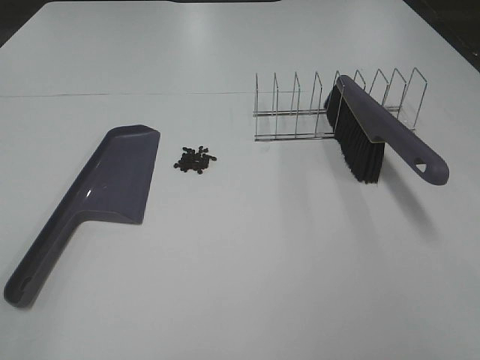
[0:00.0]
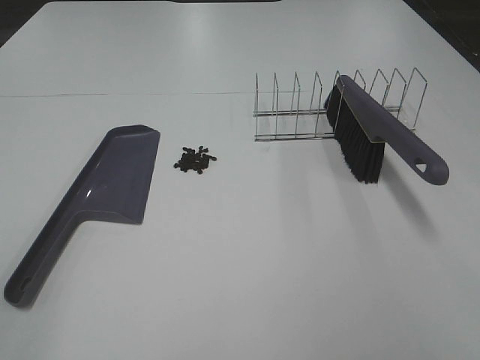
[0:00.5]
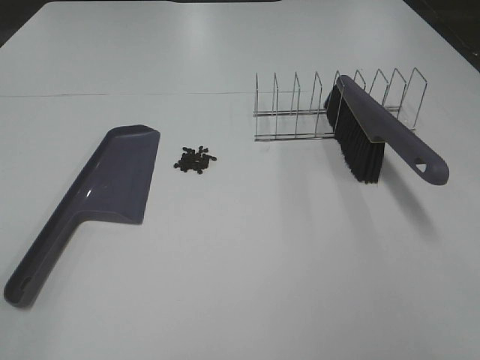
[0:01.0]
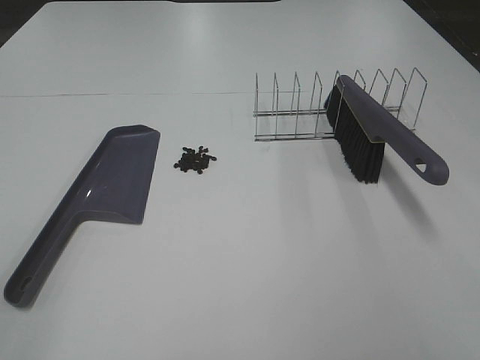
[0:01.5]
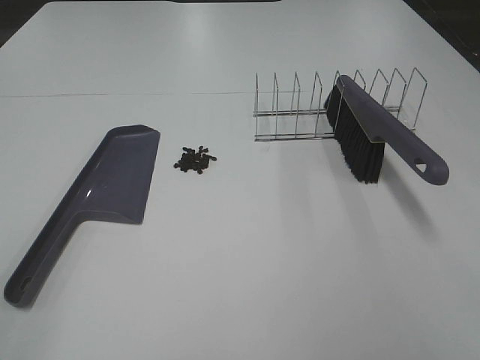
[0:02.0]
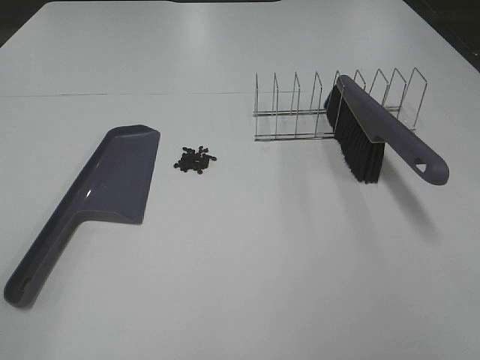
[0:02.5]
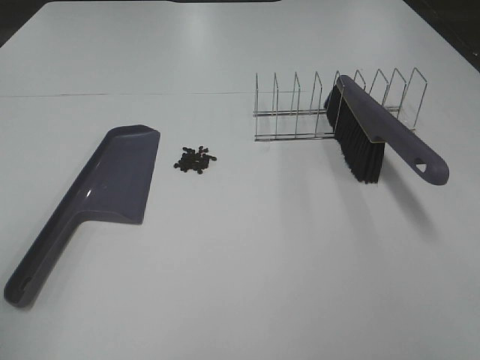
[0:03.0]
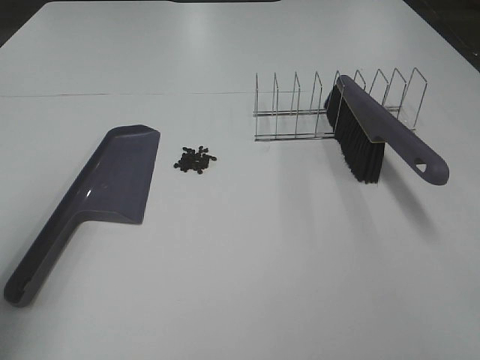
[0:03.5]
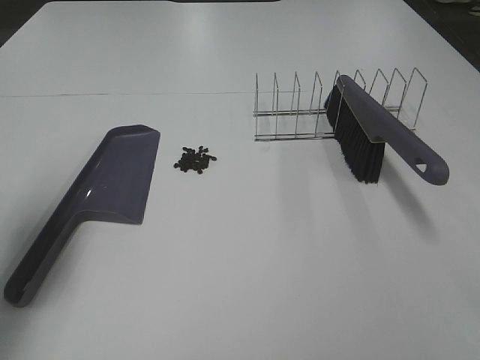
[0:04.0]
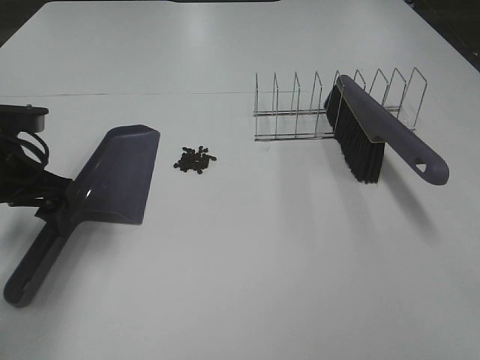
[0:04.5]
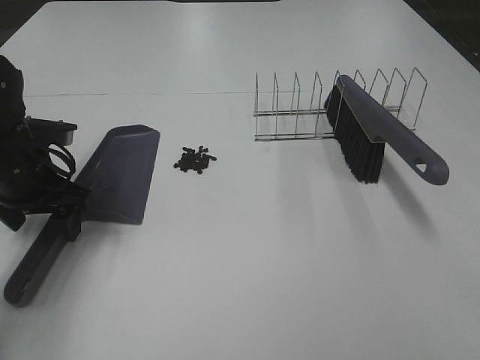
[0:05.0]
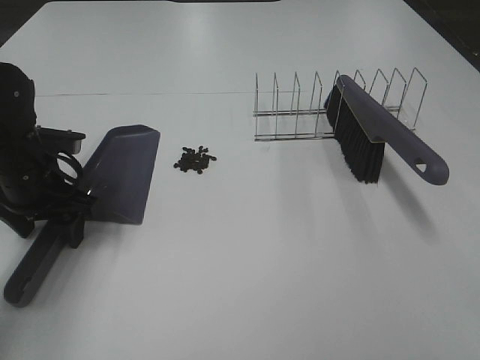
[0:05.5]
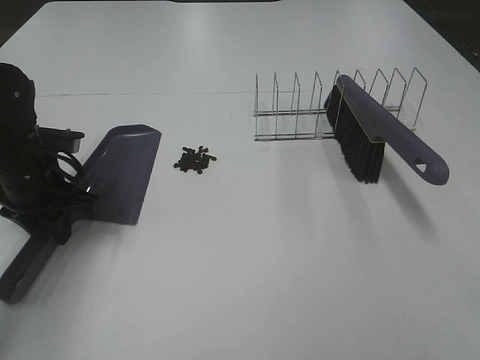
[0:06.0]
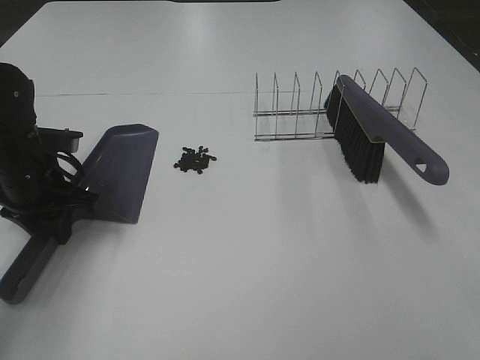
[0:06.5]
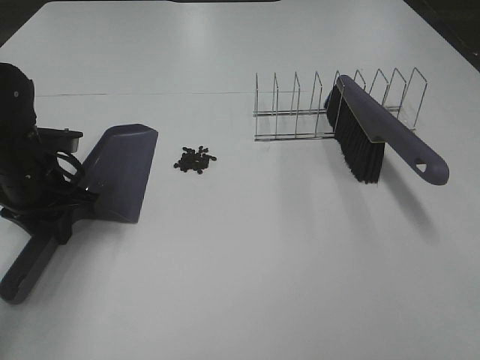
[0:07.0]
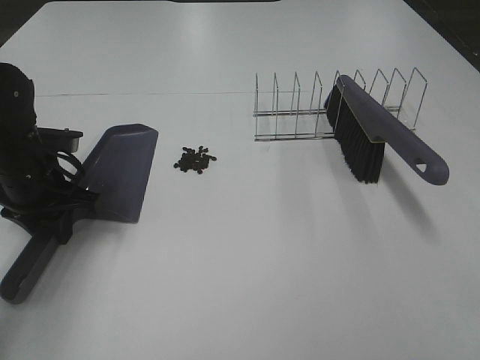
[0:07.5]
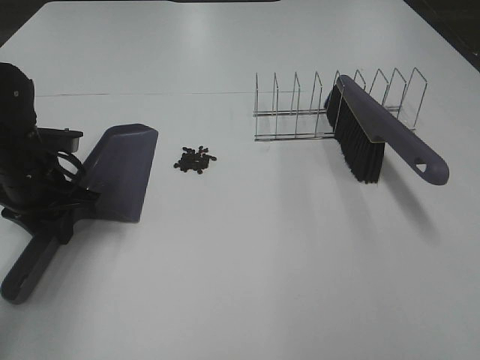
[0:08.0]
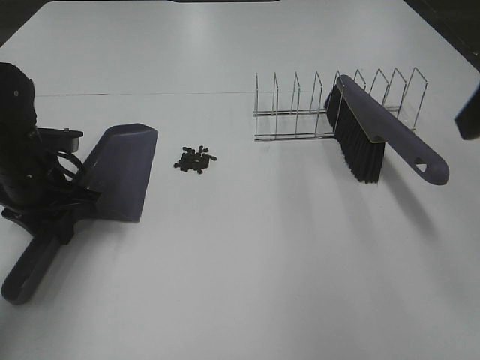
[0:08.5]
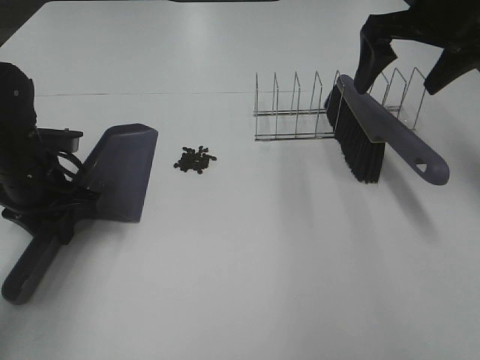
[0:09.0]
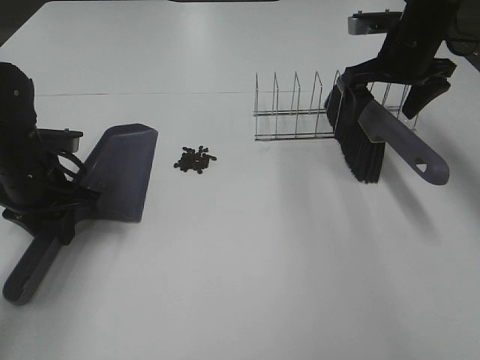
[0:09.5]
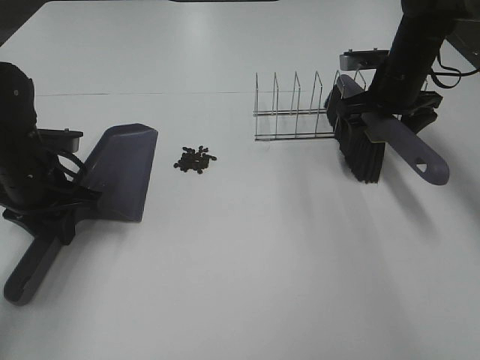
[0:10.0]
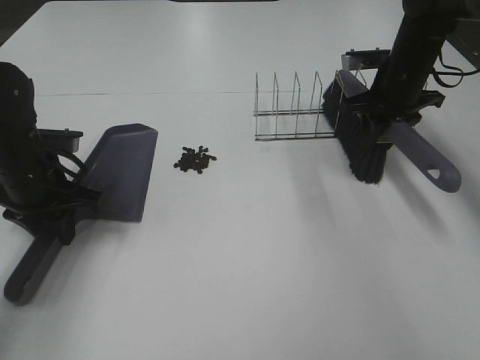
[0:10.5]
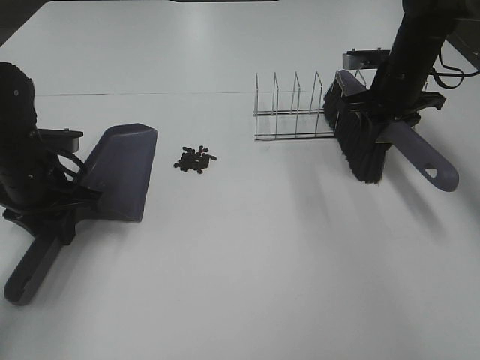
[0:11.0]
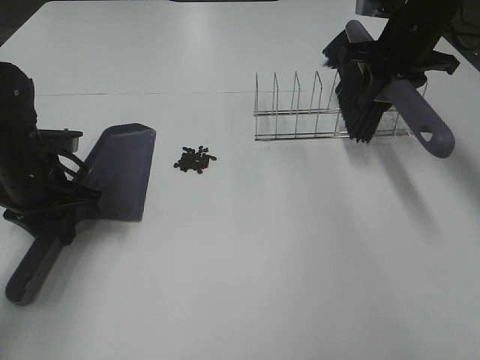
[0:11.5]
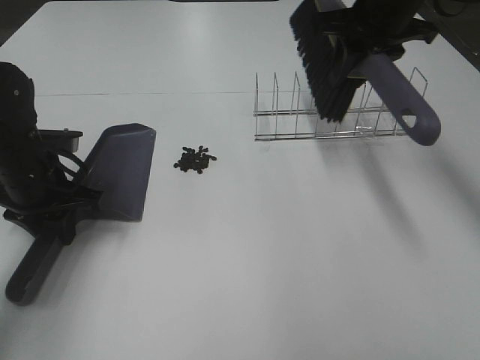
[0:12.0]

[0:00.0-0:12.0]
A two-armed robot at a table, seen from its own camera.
Task of the whole recording: Sweep Coffee Bean.
Step, 0:00.0 to 0:06.0: Left hand: grab the dustpan.
Step, 0:07.5 to 0:10.5: Right hand:grab the broom.
0:00.0 to 0:02.0: The two grippers keep their place.
0:02.0 to 0:04.0: The left gripper goes about 25 cm forward.
0:04.0 to 0:06.0: The left gripper moves downward, forward and to the right, about 15 cm, and closes up.
0:08.0 to 0:10.0: The right gripper travels forward and downward by roughly 50 cm.
0:10.0 to 0:12.0: The right gripper heads upward and to the left, covering roughly 15 cm, and closes up.

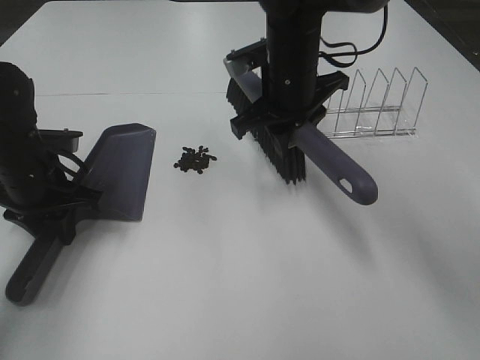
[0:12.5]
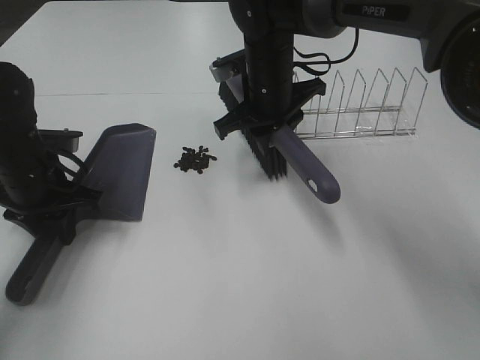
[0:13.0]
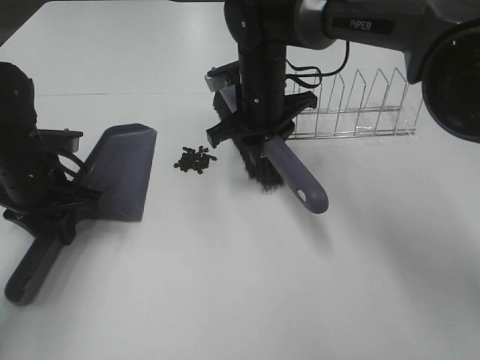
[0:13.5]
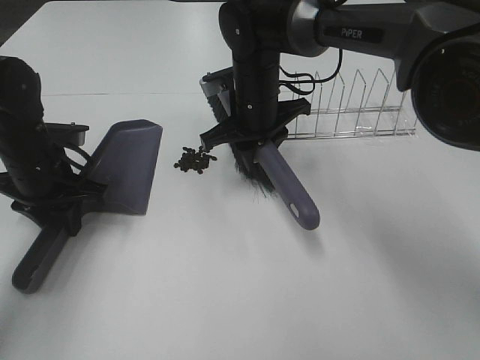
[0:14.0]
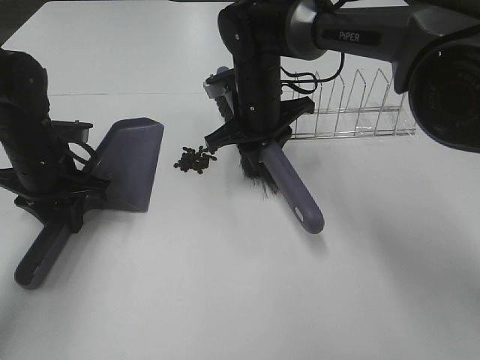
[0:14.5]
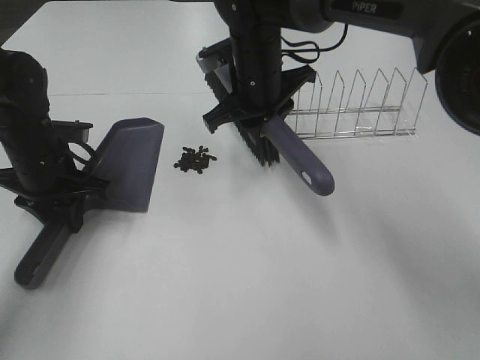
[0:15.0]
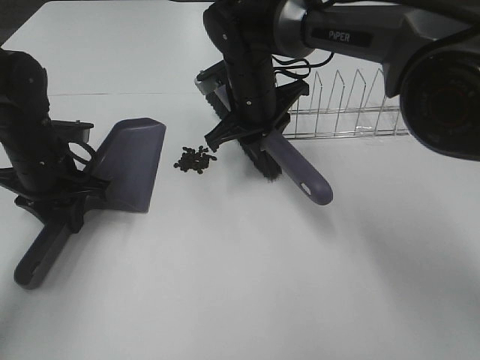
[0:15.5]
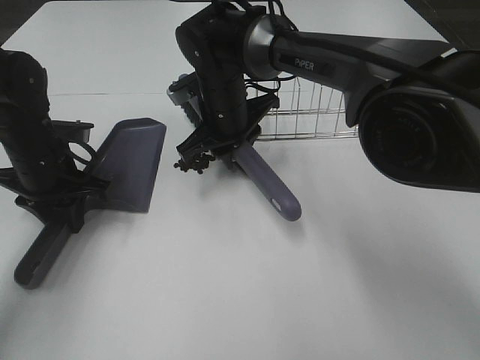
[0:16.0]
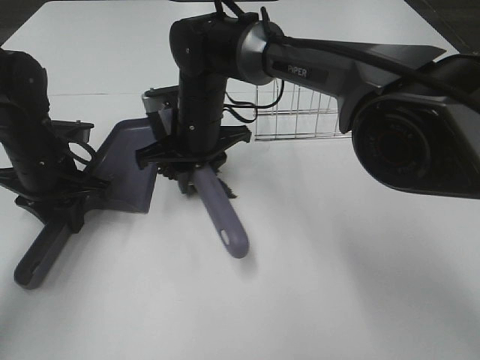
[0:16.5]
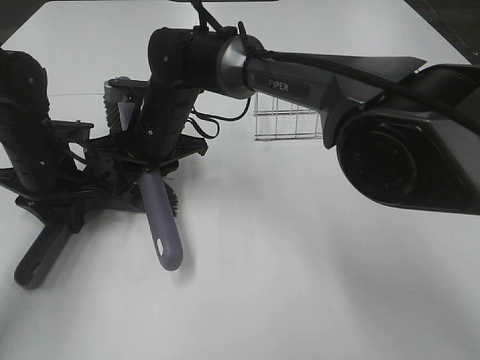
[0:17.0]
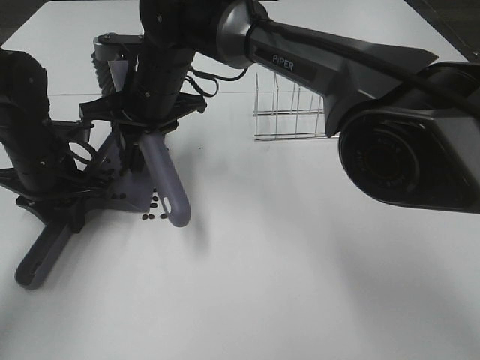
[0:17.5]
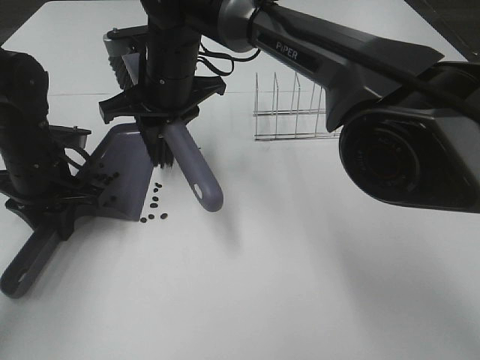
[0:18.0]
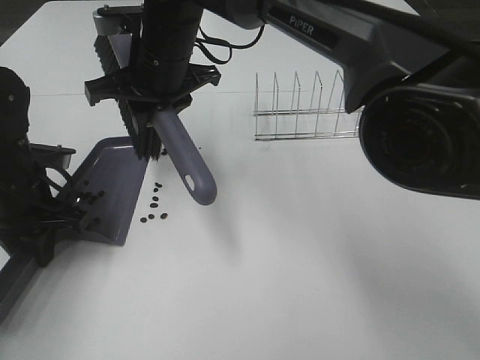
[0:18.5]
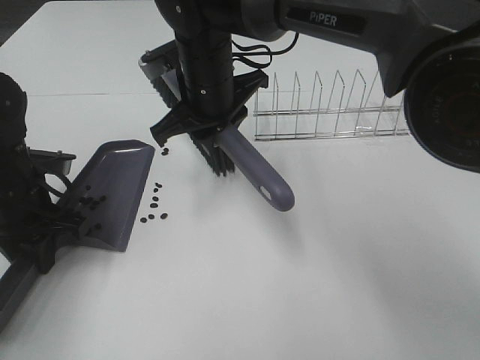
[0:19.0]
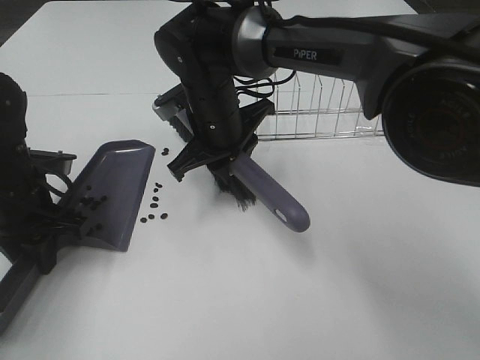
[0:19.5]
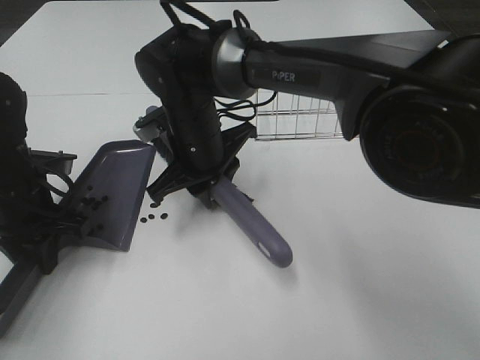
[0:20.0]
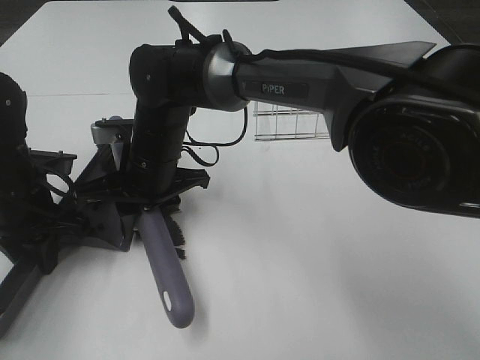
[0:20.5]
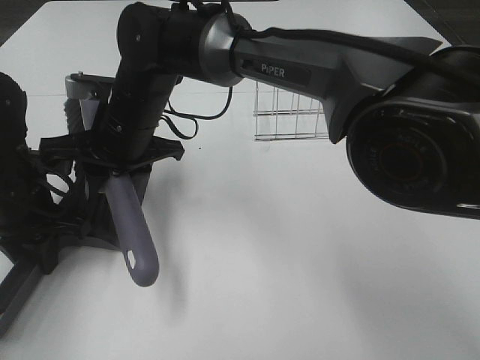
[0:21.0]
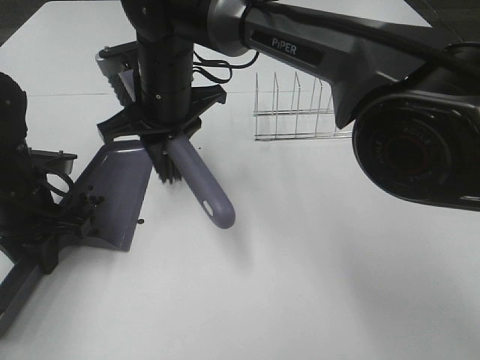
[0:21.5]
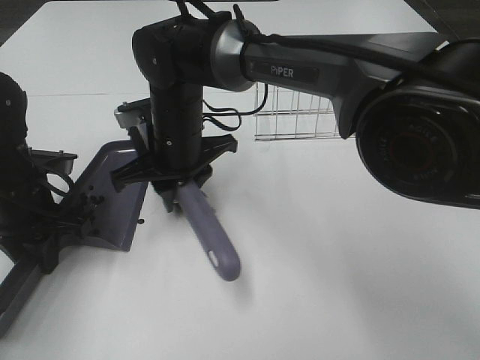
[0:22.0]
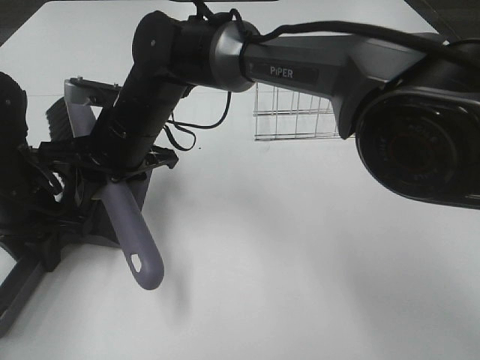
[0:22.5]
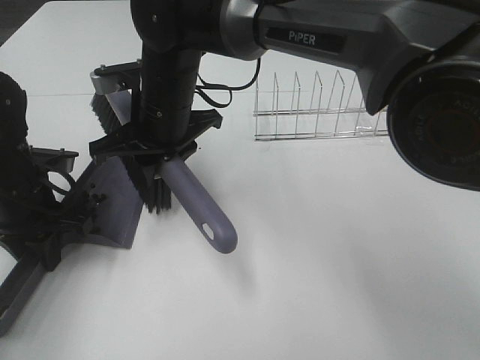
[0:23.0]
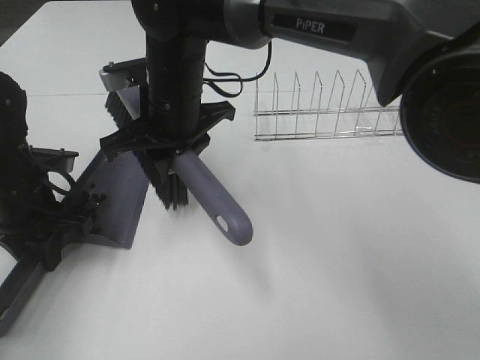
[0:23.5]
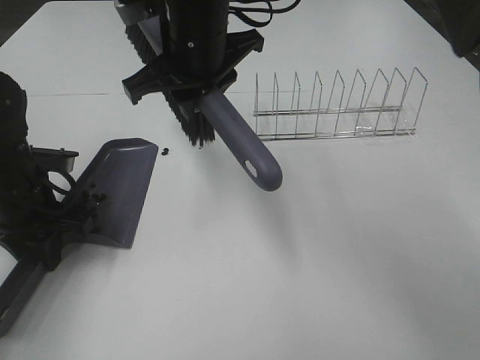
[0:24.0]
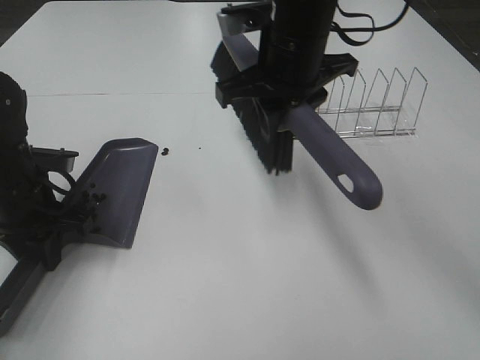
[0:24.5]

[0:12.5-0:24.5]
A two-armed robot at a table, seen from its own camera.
Task of the whole recording: Sweep Coffee Bean.
0:12.5 to 0:14.5: The right gripper heads downward, covering some 5 cm.
0:14.5 to 0:16.5: The right gripper travels to the left by some 10 cm.
0:16.5 to 0:18.5: The right gripper moves upward, approximately 10 cm.
0:18.5 to 0:20.5: The right gripper is displaced downward and backward by roughly 10 cm.
0:22.5 to 0:24.5: The right gripper shifts roughly 20 cm to the right and upward.

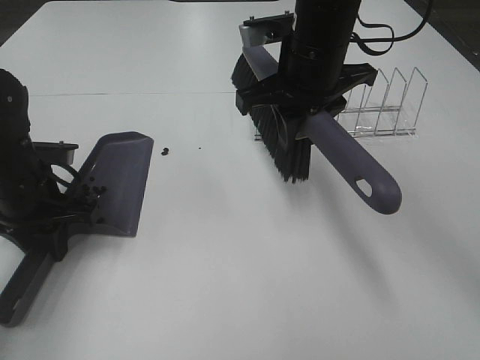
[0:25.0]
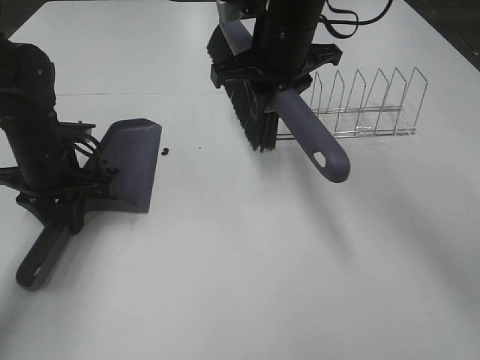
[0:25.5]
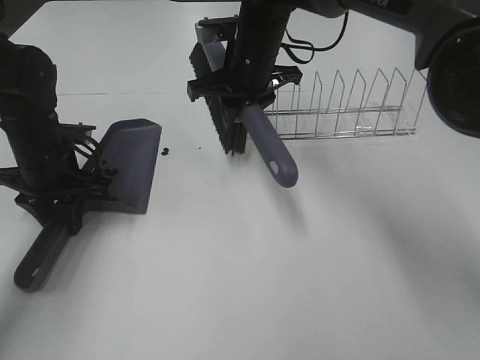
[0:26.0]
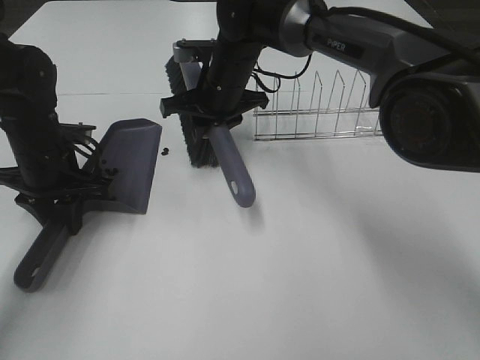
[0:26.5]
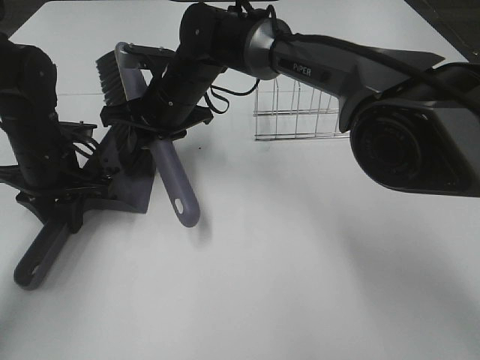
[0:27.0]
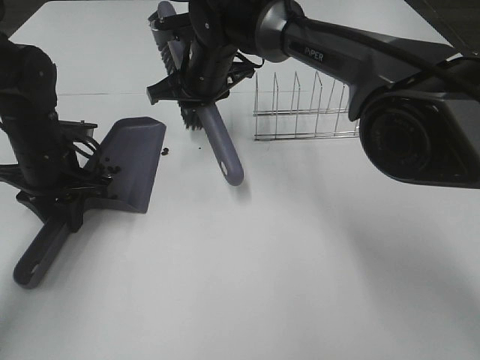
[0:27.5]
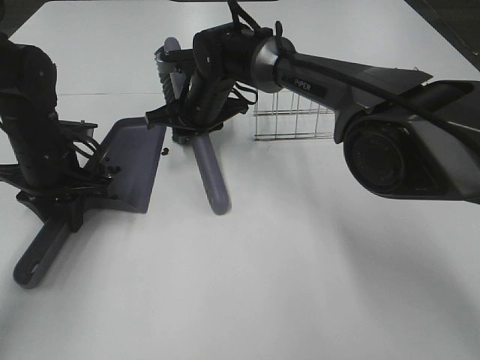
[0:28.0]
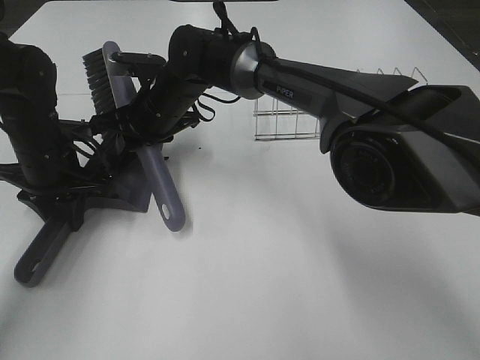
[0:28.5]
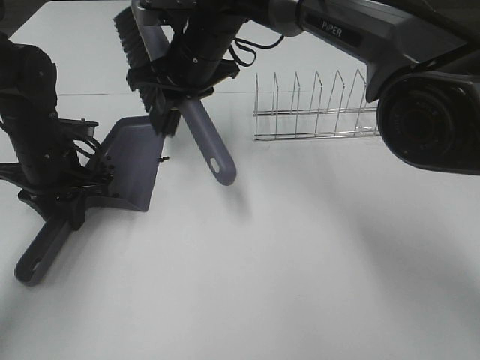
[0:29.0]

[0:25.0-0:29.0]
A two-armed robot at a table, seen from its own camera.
Task of the whole recording: Sweep Coffee Bean.
Step, 0:25.0 to 0:28.5: Right hand:sweep the coffee beans into the dustpan.
0:25.0 to 0:27.0: The right gripper is displaced to the left, downward and forward by approximately 20 cm.
0:27.0 to 0:29.0: The right gripper moves upward, approximately 5 cm.
